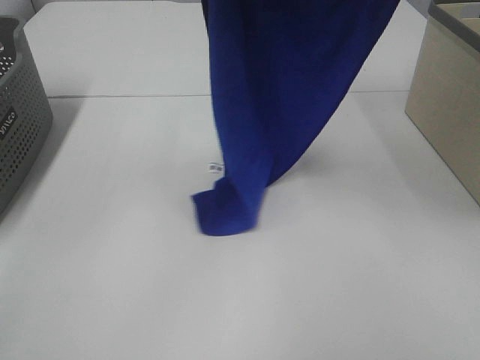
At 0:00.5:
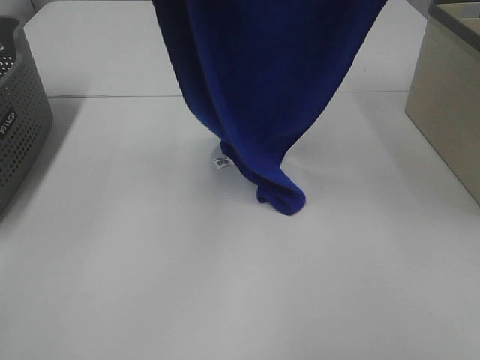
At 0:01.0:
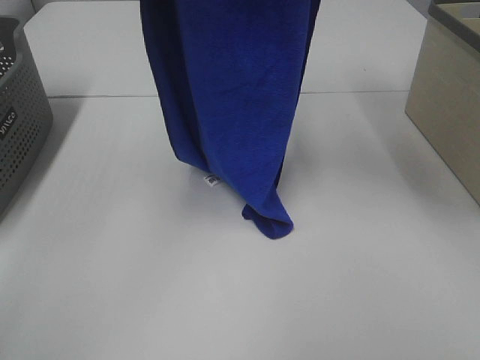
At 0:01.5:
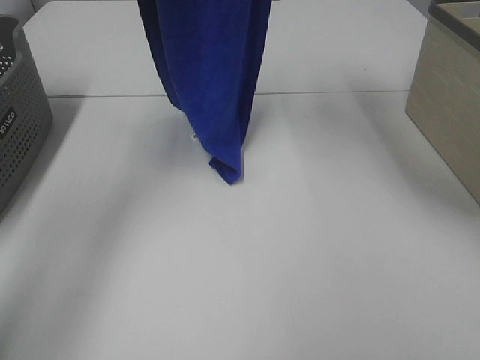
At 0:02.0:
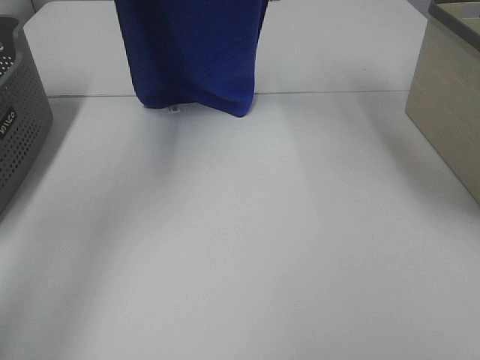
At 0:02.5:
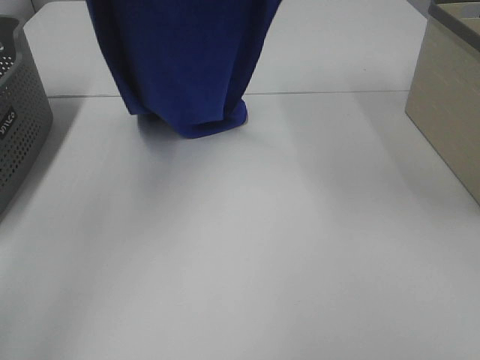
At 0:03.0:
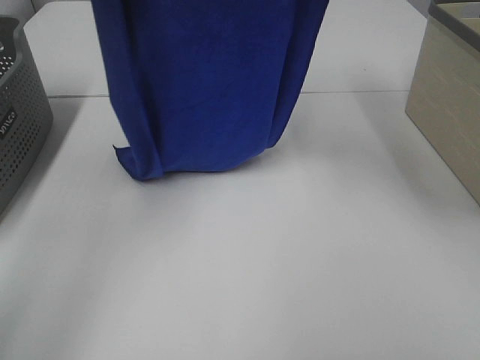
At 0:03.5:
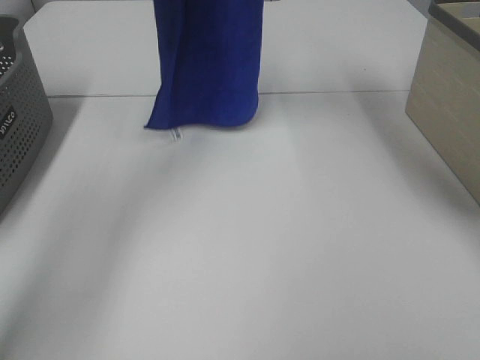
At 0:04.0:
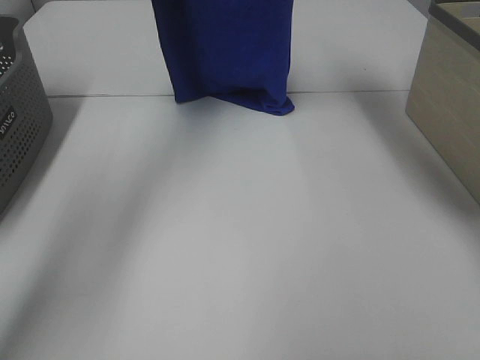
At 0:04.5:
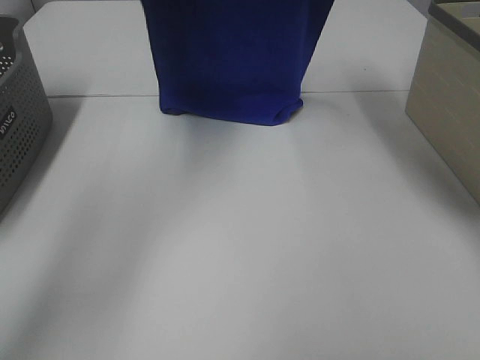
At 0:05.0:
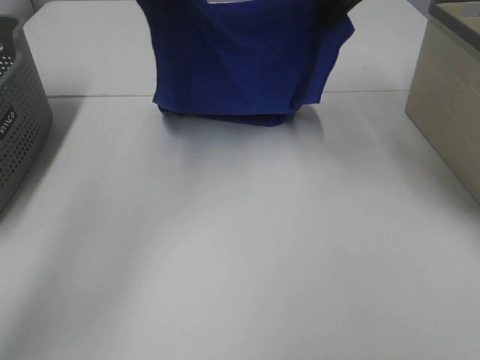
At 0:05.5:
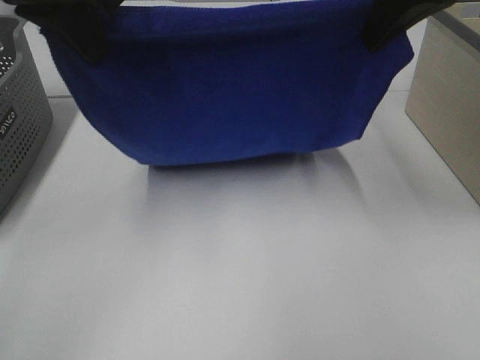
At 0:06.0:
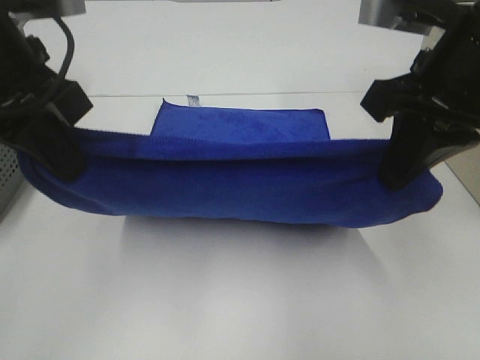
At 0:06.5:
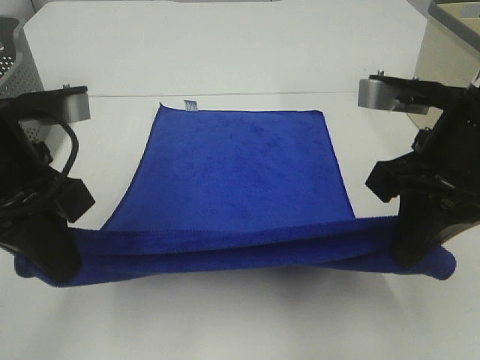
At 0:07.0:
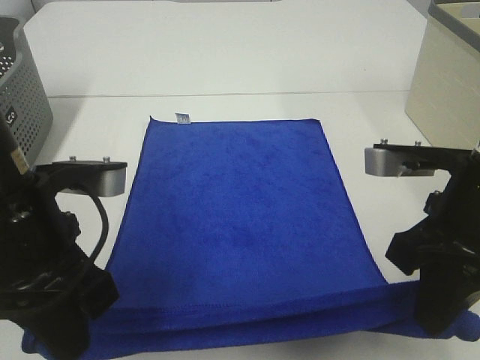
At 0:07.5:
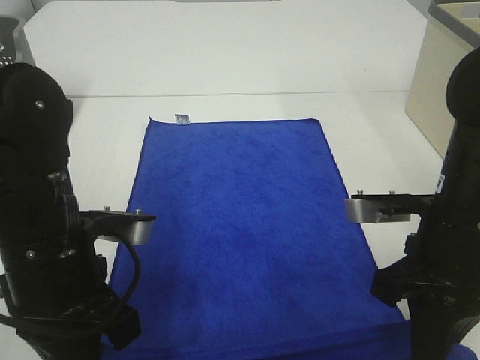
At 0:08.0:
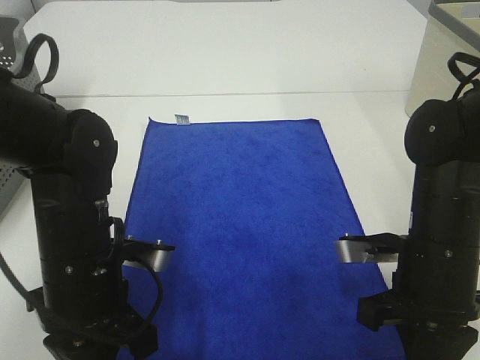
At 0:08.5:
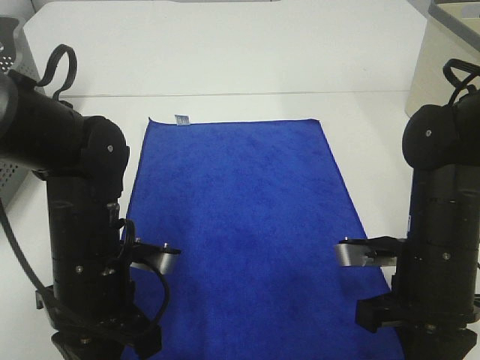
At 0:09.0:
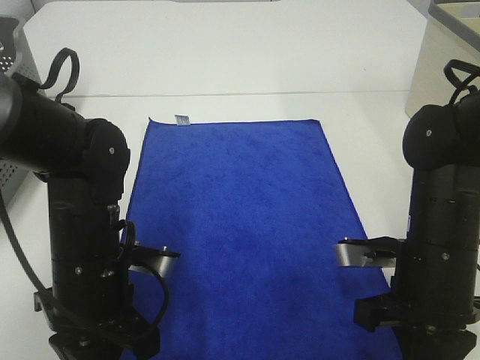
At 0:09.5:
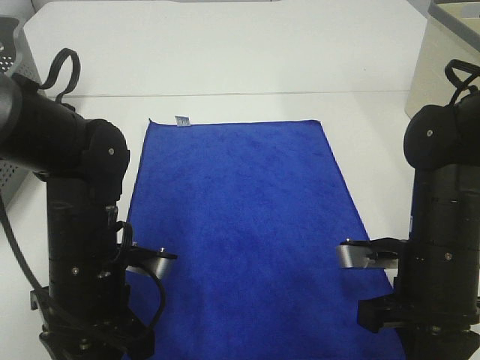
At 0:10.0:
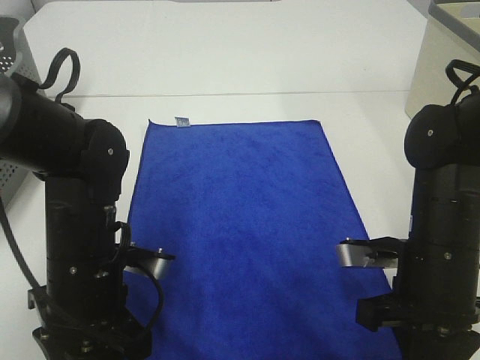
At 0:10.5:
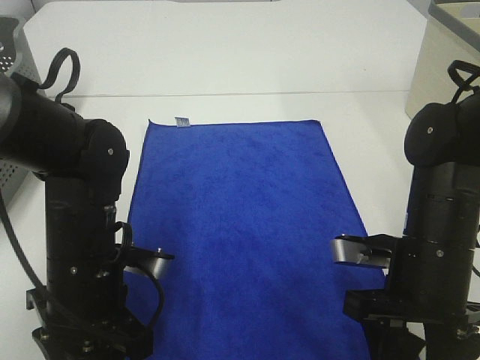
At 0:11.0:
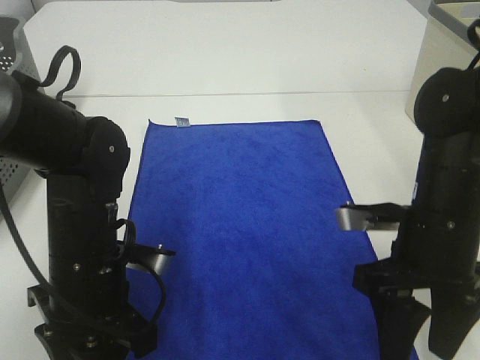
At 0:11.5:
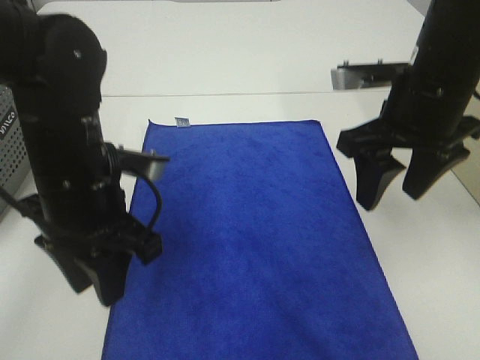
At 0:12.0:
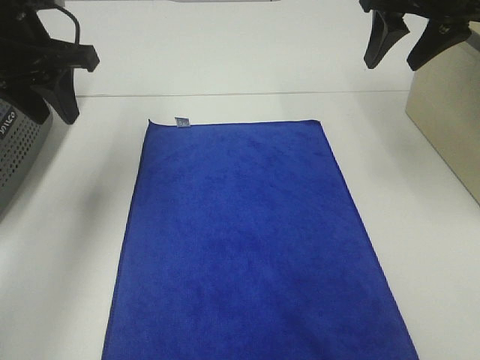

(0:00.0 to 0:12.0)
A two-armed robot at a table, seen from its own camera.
Task of the whole recording: Remove the towel and place it.
Step, 0:00.0 - 0:06.0: Left hand: spread the blue towel flat on the table.
Step, 0:00.0 - 0:06.0: Right hand: spread the blue towel flat on the table.
0:00.0 - 0:02.0: The left gripper is displaced forward and to the left by some 15 cm; the right gripper is displaced forward by approximately 10 cm.
0:02.0 - 0:04.0: The right gripper goes roughly 10 cm forward. The left gripper shifts about 10 cm forward and downward.
0:04.0 - 0:06.0: Both grippers move backward and downward, some 30 cm.
0:06.0 - 0:08.0: The two grippers go about 20 cm downward.
0:08.0 - 0:10.0: The left gripper opens up.
0:10.0 - 0:12.0: The left gripper is displaced upward, forward and to the left by approximately 25 cm. The right gripper is displaced forward and upward by some 30 cm, and opens its fingers.

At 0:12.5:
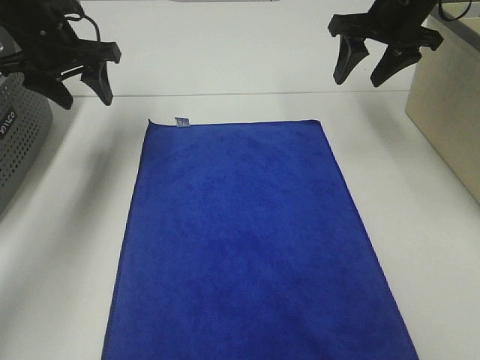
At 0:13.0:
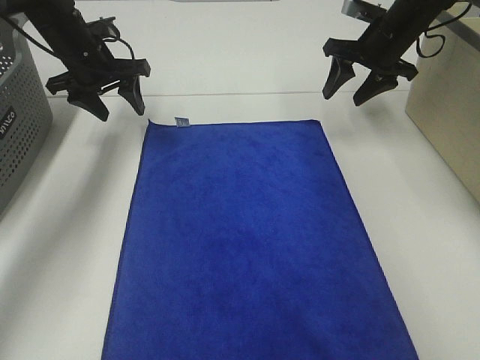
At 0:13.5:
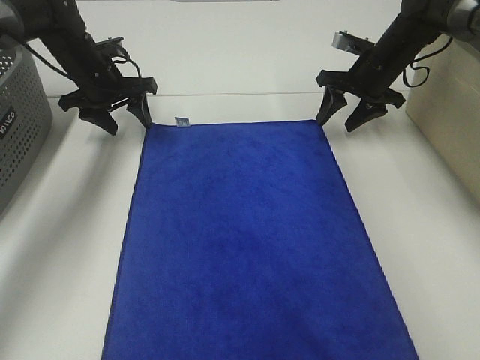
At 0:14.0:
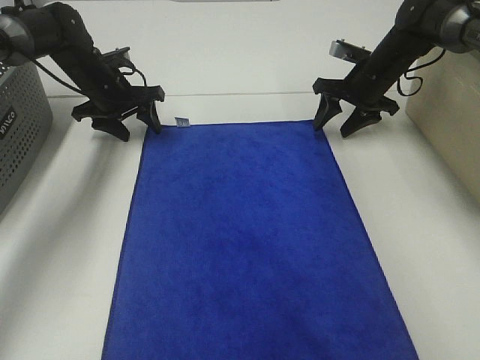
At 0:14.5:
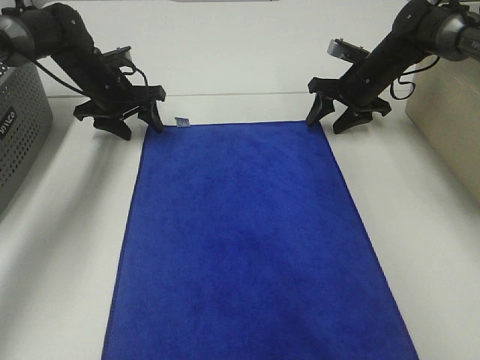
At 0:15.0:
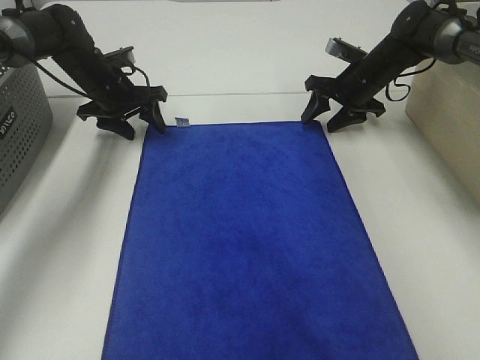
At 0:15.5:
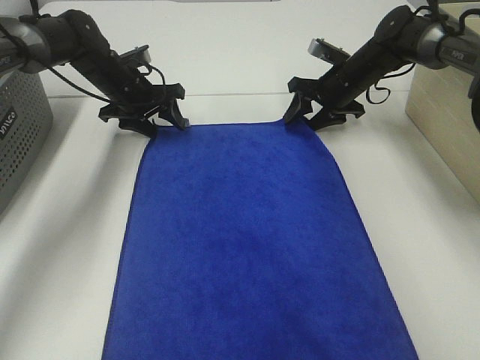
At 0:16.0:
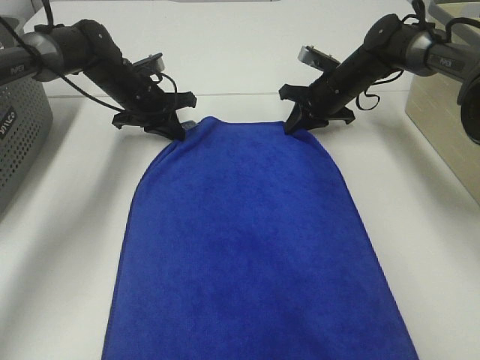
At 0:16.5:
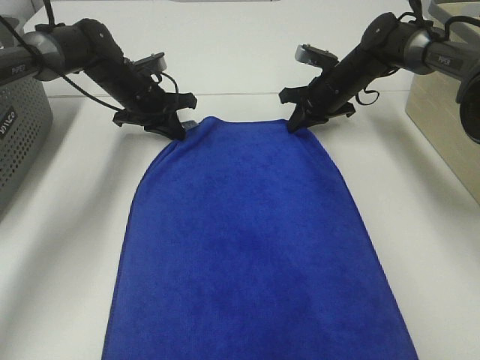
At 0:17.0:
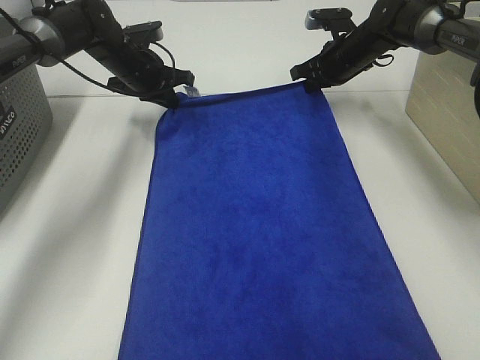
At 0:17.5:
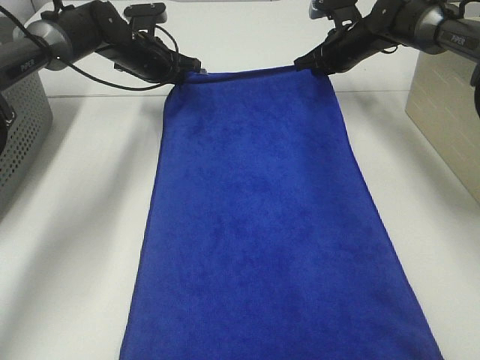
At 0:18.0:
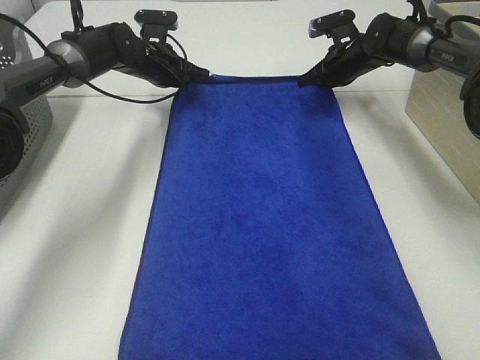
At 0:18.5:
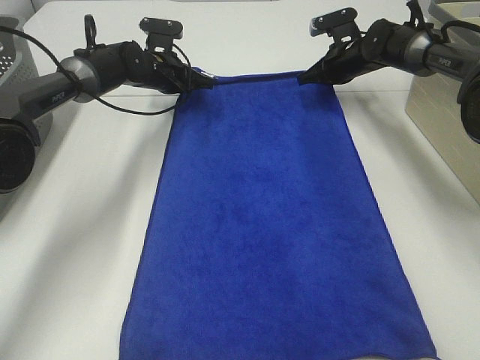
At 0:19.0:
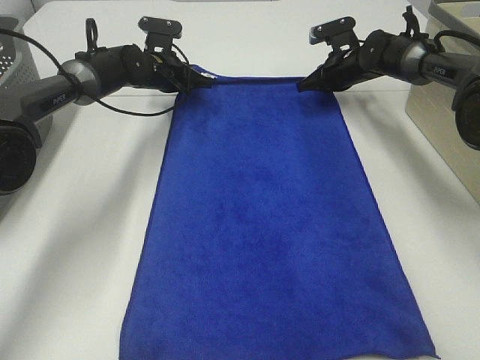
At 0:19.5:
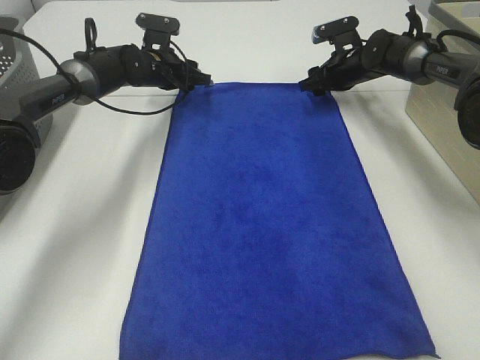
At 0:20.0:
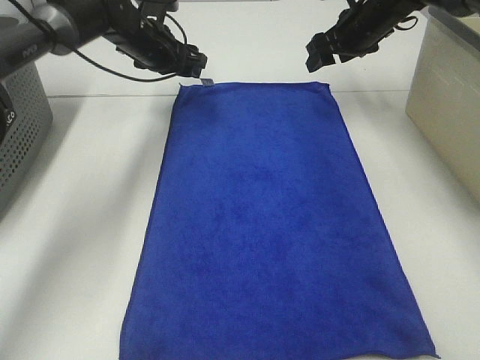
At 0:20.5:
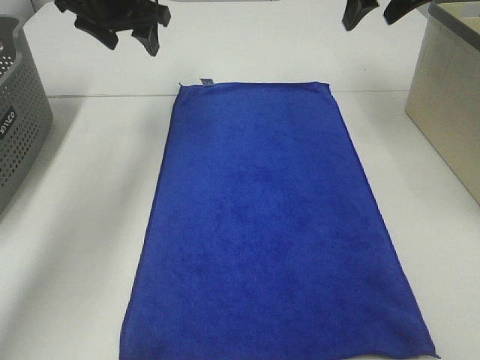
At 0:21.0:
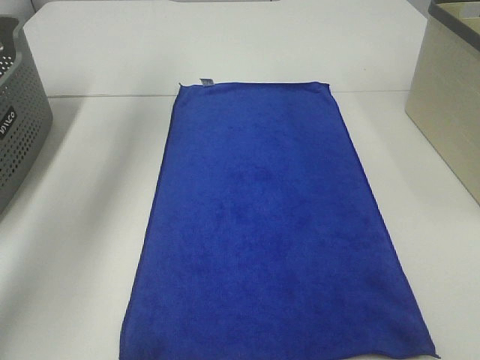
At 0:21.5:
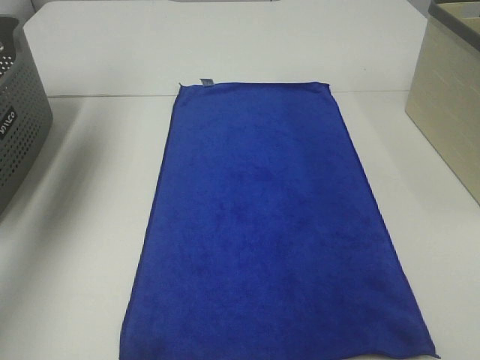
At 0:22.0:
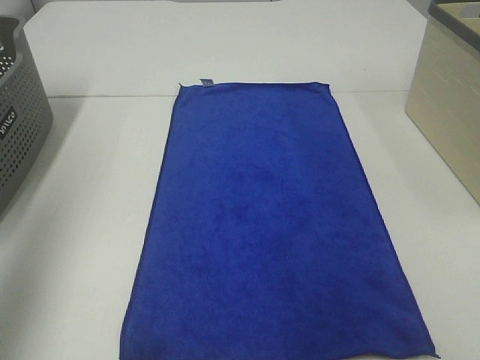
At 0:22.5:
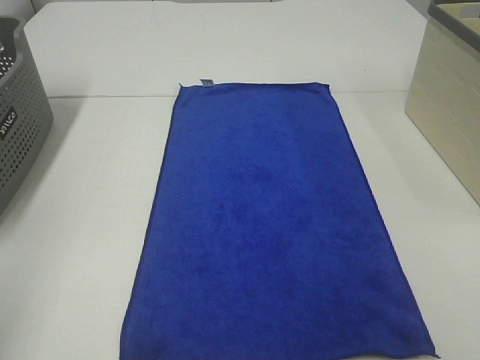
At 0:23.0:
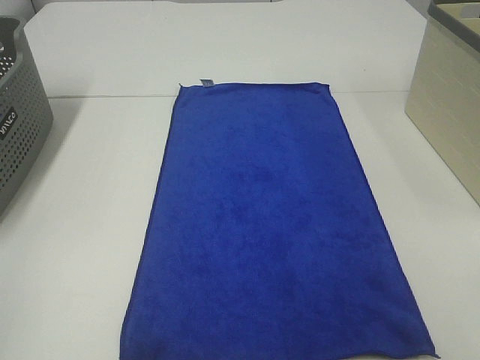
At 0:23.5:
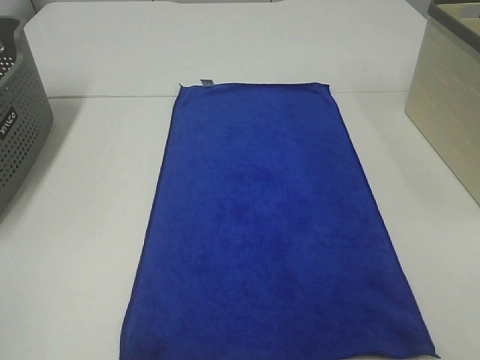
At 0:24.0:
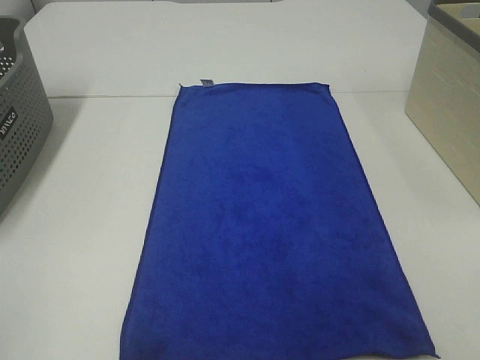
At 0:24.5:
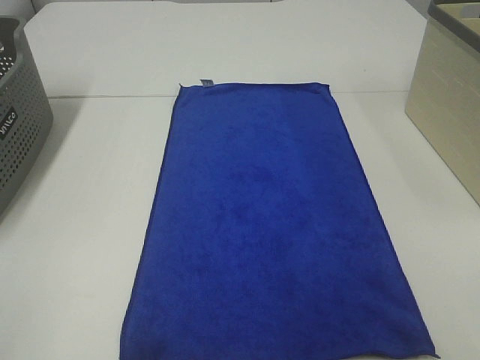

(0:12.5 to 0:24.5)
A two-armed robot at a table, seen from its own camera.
Task of the whole recording: Remove the towel and place it.
0:12.5 - 0:14.5: The two grippers go approximately 15 cm downward and forward.
0:14.5 - 0:16.5: The left gripper closes, while the right gripper closes its fingers.
0:16.5 - 0:18.5: The left gripper shifts roughly 5 cm forward. The right gripper moves approximately 5 cm.
0:18.5 - 0:20.5: The grippers both shift upward and backward by roughly 20 cm. The left gripper opens up. Meanwhile the right gripper opens.
0:20.5 - 0:22.5: The grippers both shift backward by roughly 40 cm.

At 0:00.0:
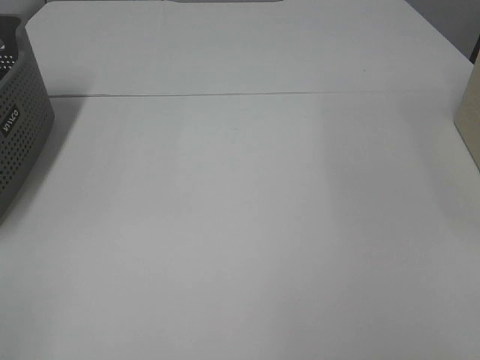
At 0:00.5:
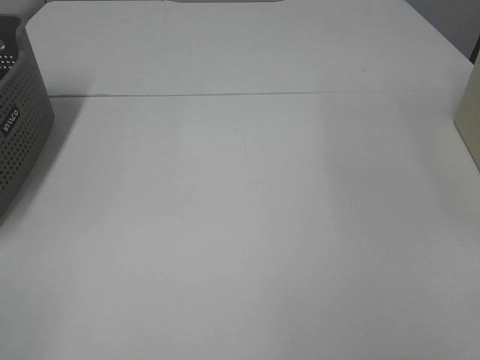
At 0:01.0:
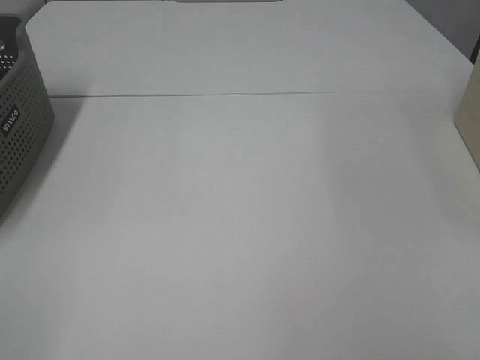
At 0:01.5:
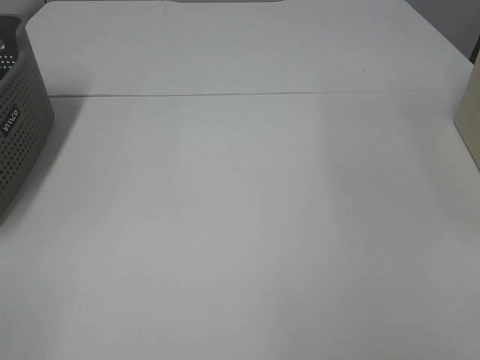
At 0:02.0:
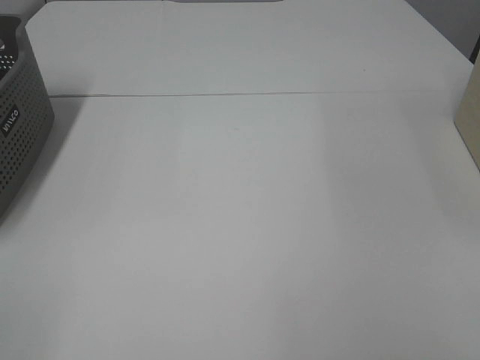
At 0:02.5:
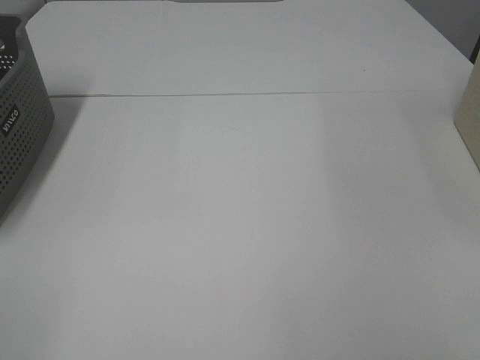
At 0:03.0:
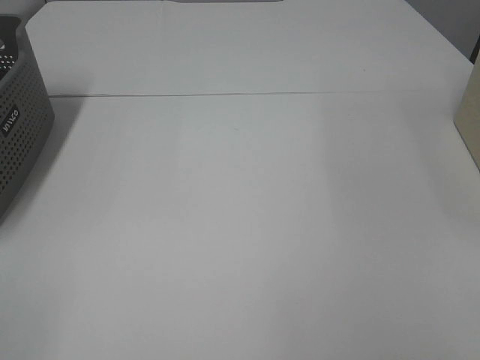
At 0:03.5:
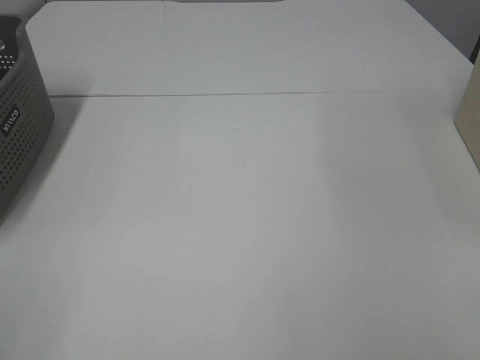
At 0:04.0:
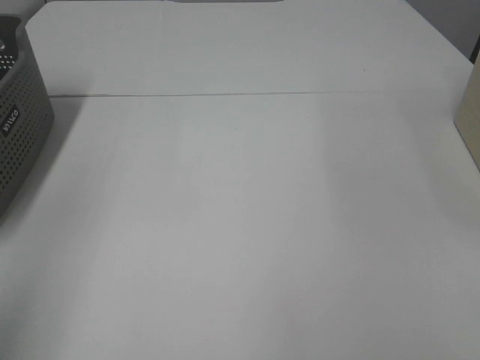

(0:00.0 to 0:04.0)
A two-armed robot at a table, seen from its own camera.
Task of the whole recording: Remove the towel and place it.
0:00.0 - 0:02.0: Neither gripper changes place.
